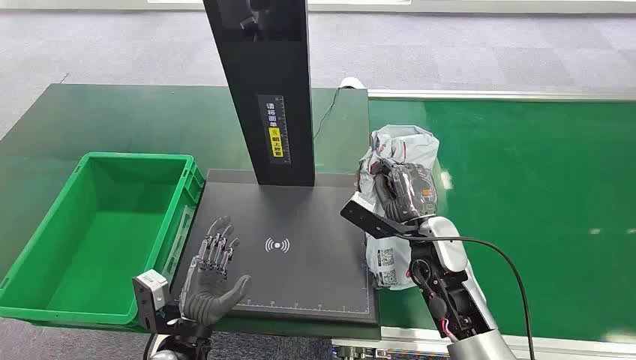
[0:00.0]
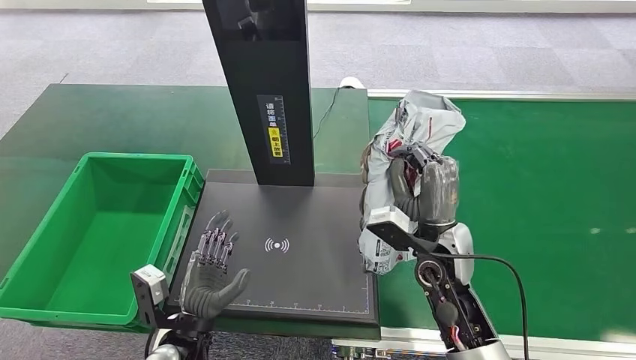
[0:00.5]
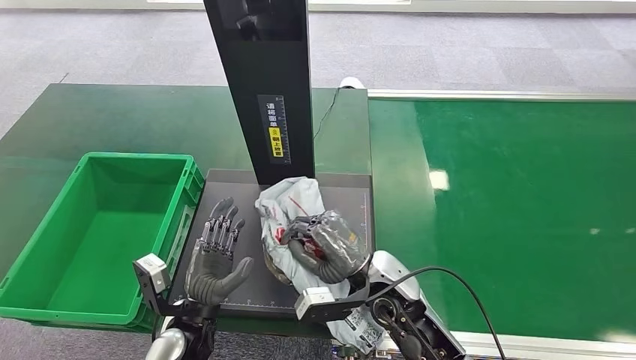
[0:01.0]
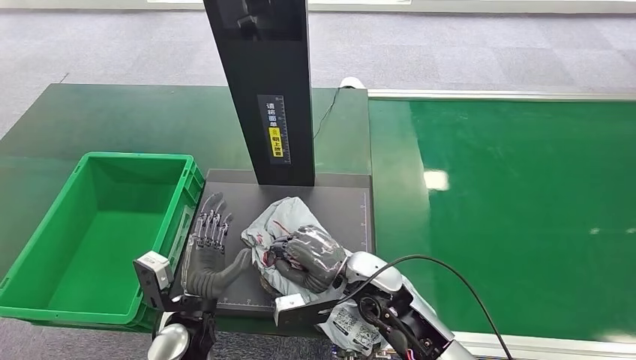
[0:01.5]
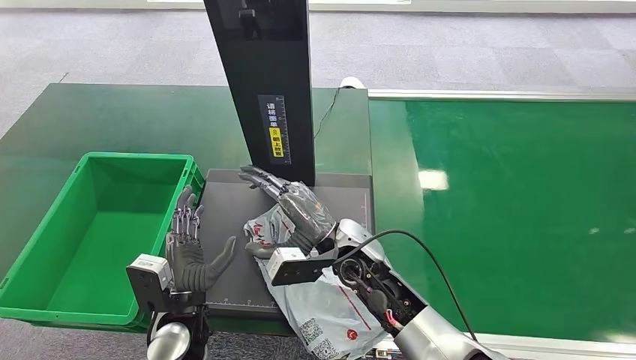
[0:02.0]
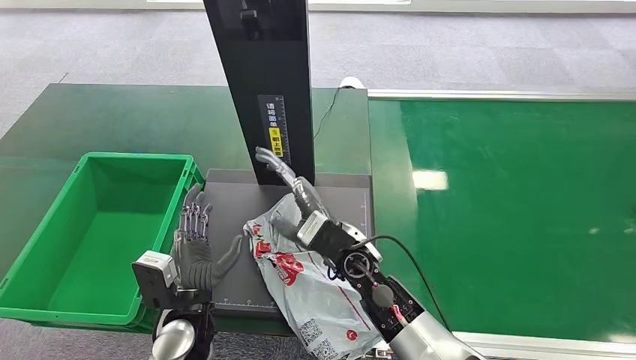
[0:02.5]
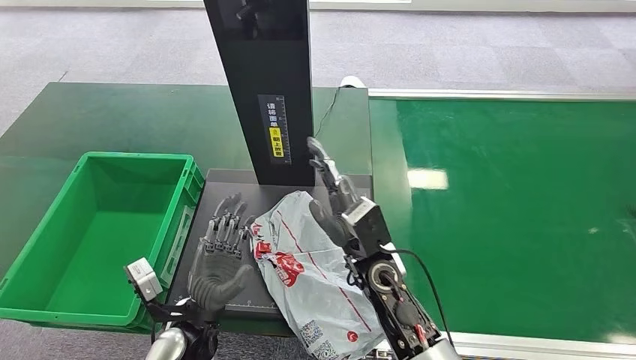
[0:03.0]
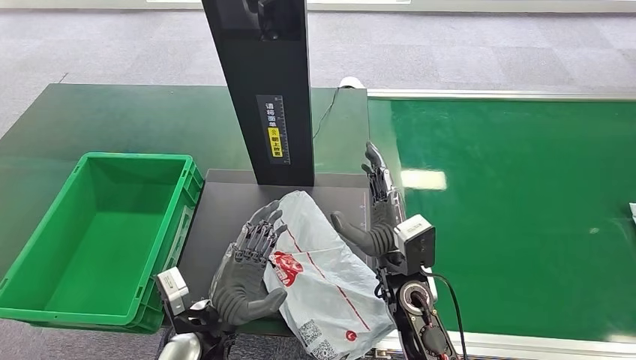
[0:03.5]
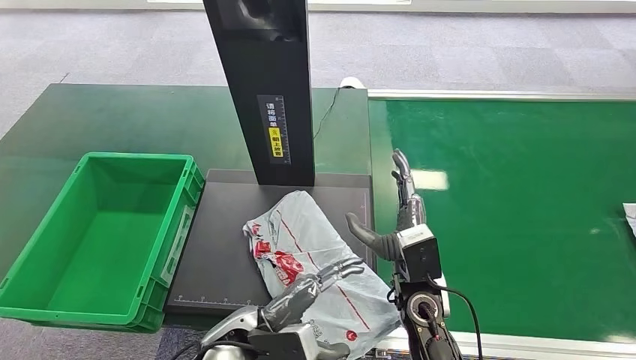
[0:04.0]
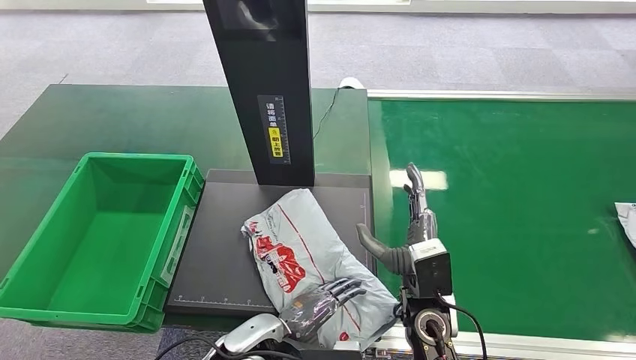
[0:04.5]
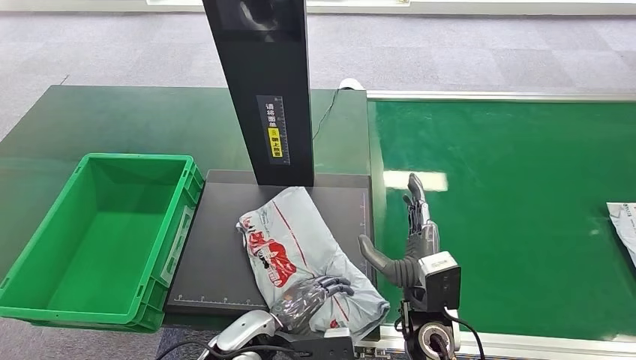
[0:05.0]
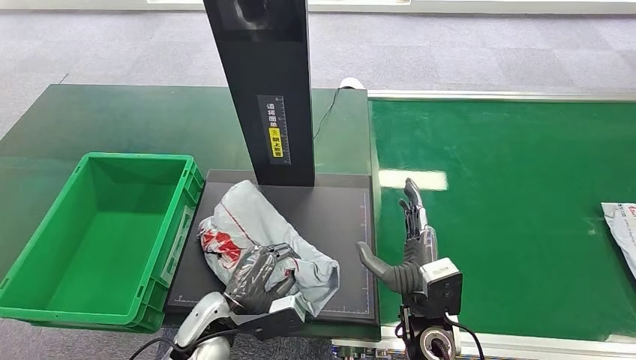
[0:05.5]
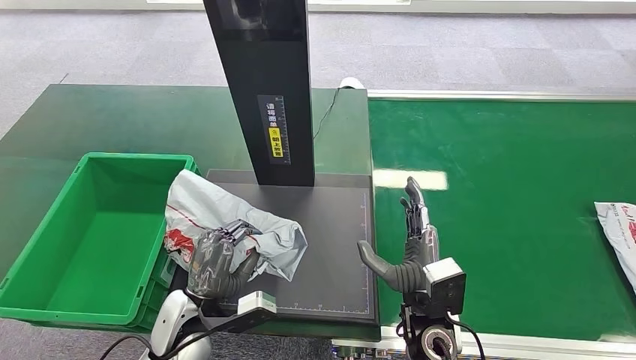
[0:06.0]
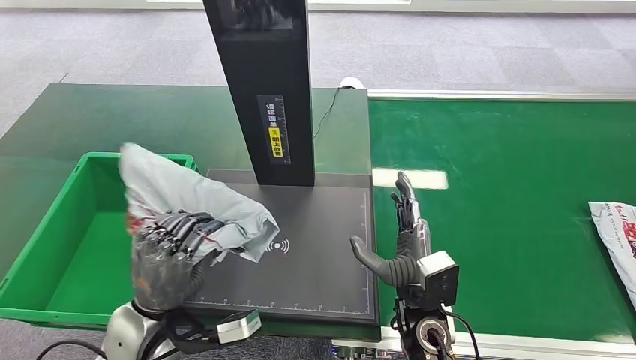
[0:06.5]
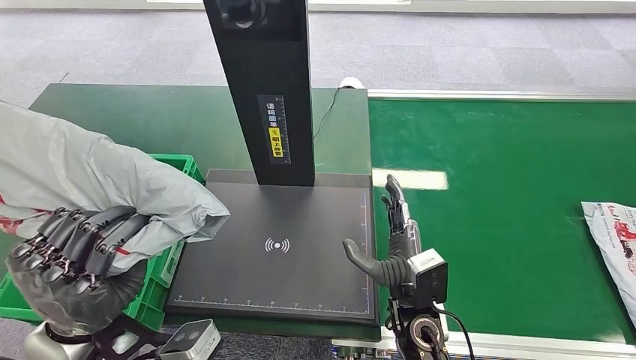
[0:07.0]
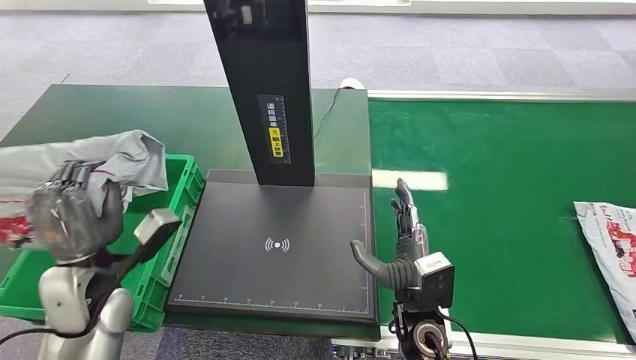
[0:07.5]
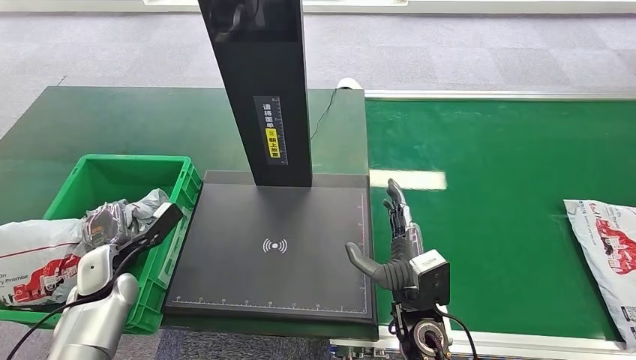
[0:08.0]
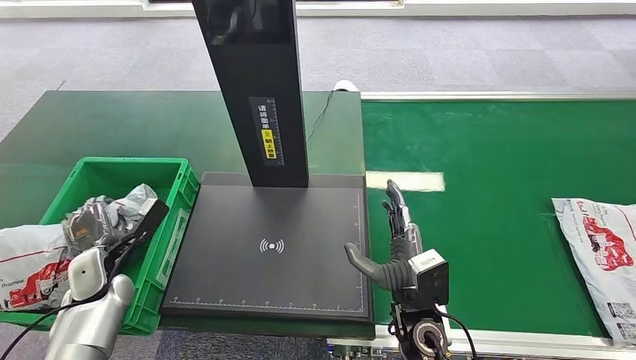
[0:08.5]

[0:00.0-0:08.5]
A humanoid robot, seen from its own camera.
0:02.0 to 0:04.0: The right hand travels to the right and backward by some 10 cm. Meanwhile the left hand moves to the right, roughly 10 cm.
